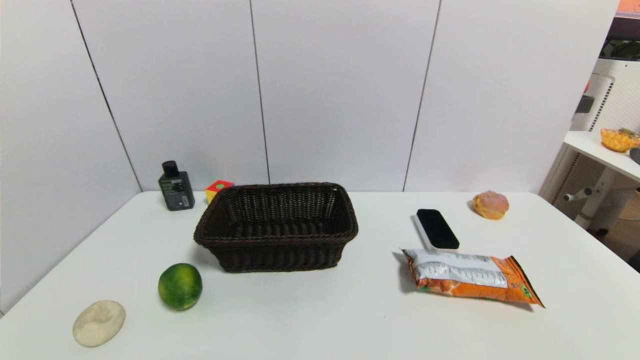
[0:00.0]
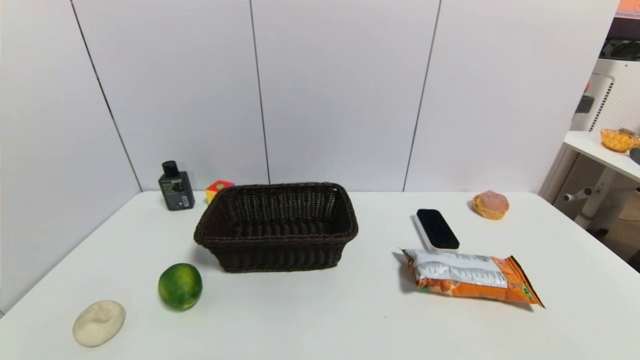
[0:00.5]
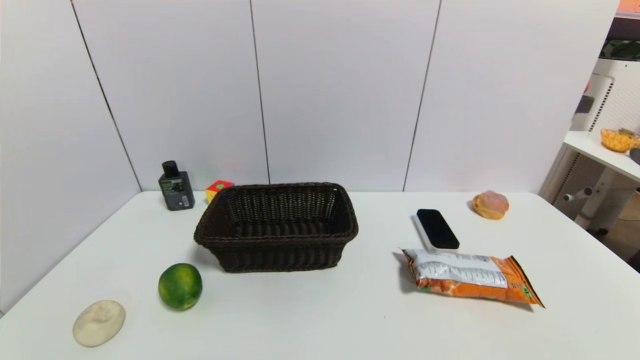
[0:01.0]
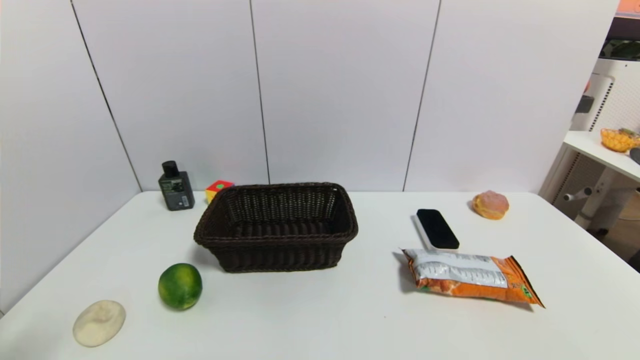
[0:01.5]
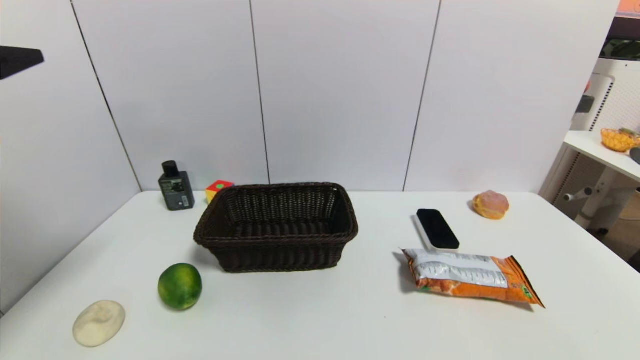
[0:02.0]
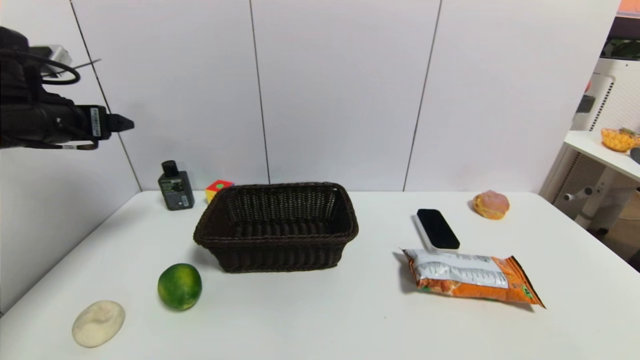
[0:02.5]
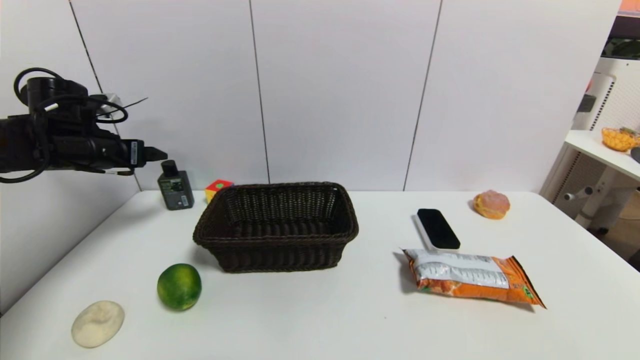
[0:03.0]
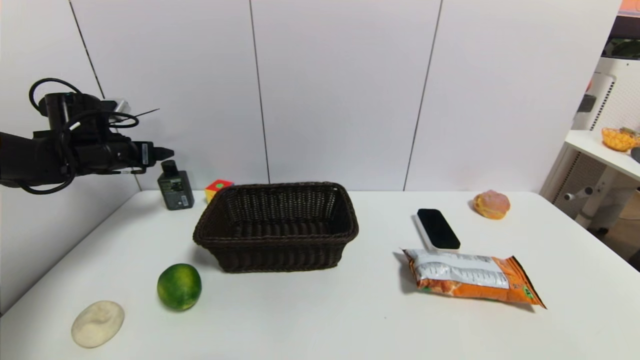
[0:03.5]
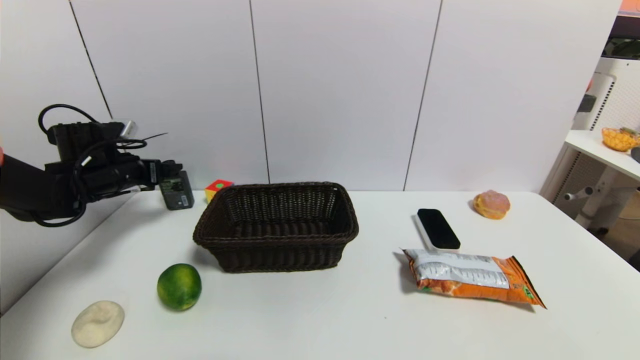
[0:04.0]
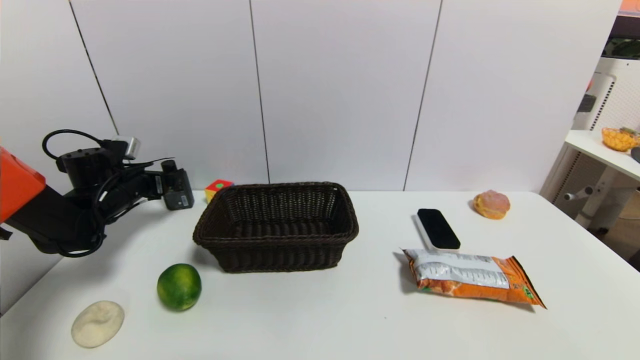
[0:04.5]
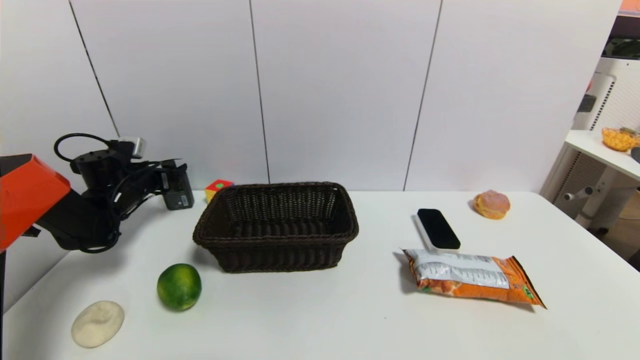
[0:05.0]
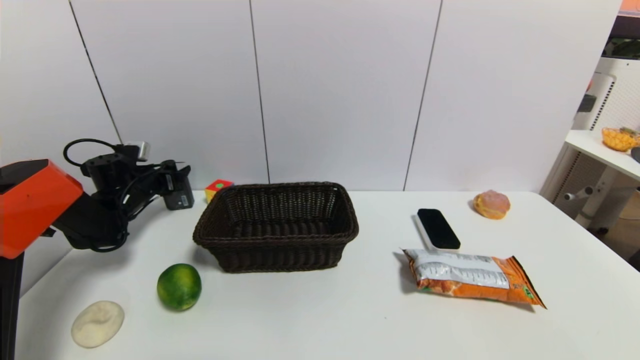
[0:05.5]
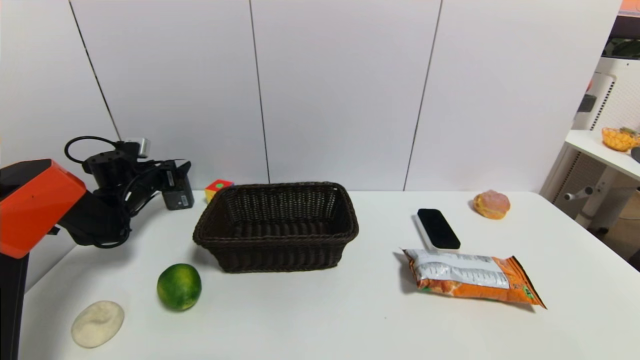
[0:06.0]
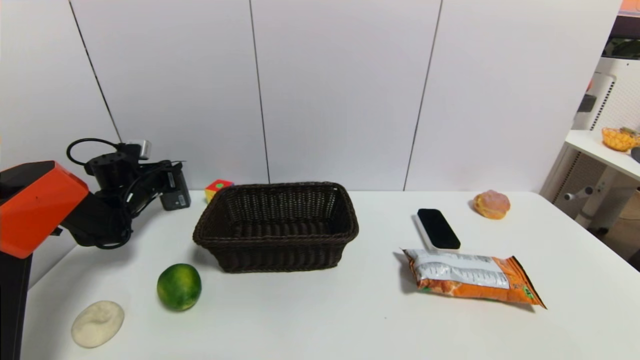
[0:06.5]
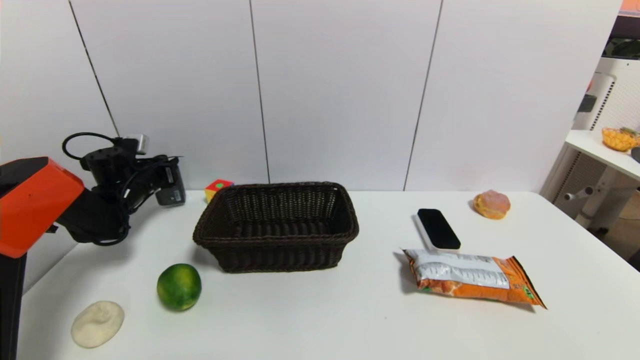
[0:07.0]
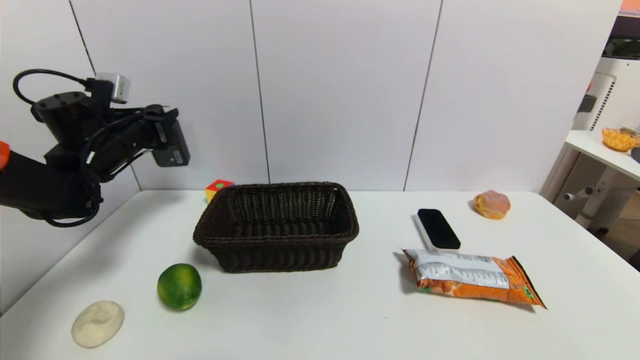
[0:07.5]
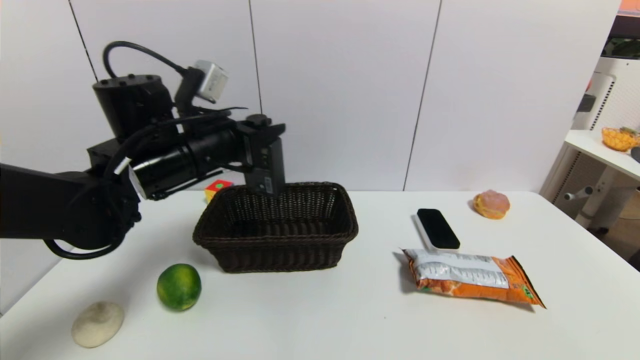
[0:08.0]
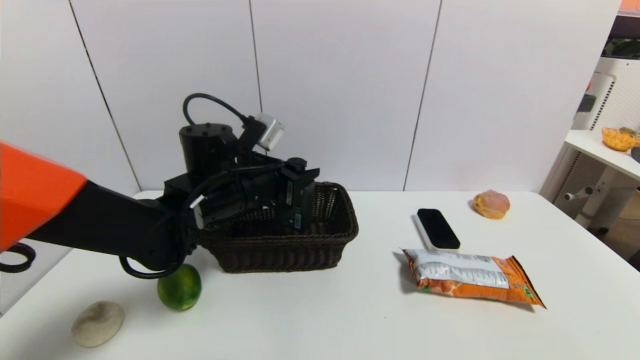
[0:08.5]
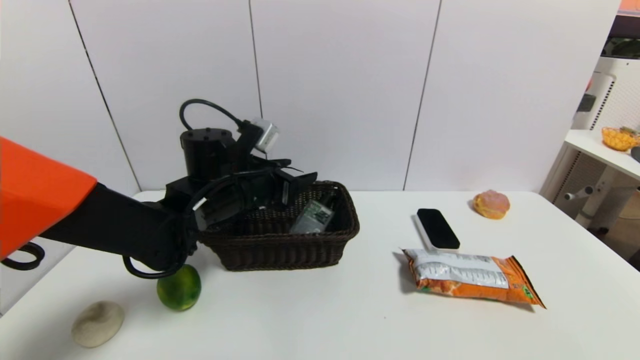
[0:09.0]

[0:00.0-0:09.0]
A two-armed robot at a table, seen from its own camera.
Task of the whole recording: use a gripper to pick the target object and place on the brown basket.
Step, 0:00.0 to 0:06.5: Grasp the hard facial cleanser with the left gripper.
0:00.0 to 0:02.0: The left gripper is displaced upward and forward by approximately 35 cm.
0:02.0 to 0:04.5: The left gripper moves downward and forward, approximately 35 cm.
0:04.5 to 0:07.0: The left gripper shifts by approximately 5 cm, and closes.
0:07.0 to 0:09.0: The left gripper is displaced to the right and backward by about 30 cm, and opens up.

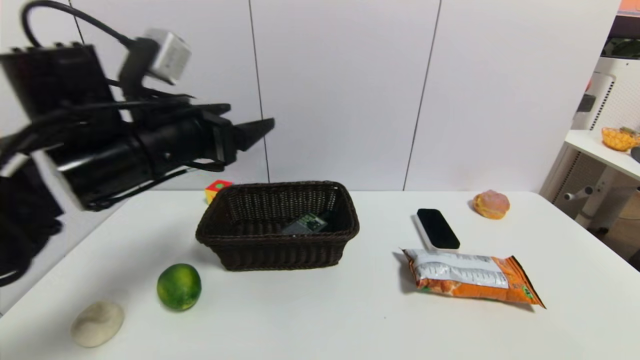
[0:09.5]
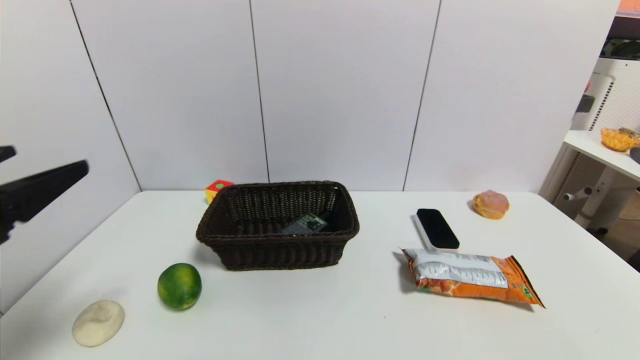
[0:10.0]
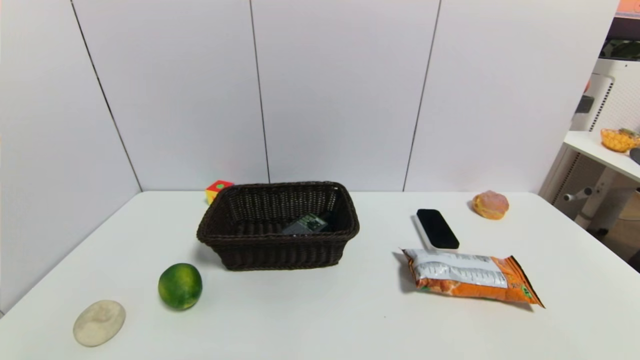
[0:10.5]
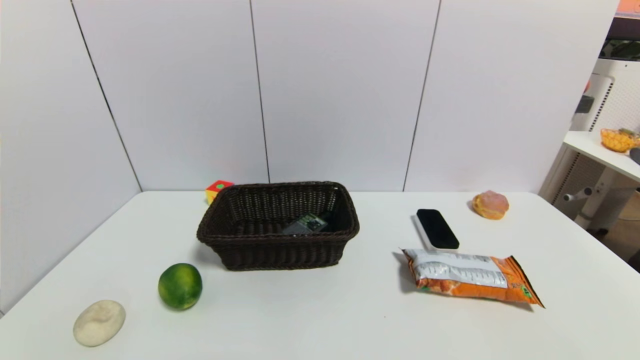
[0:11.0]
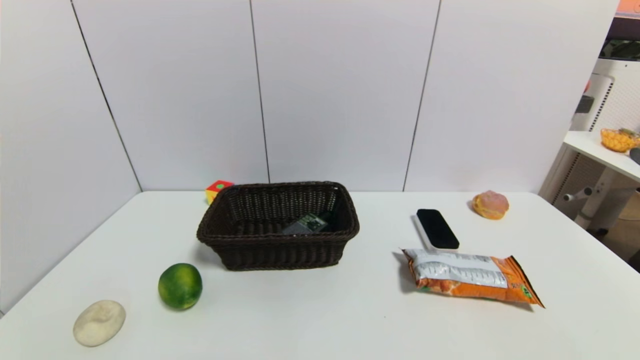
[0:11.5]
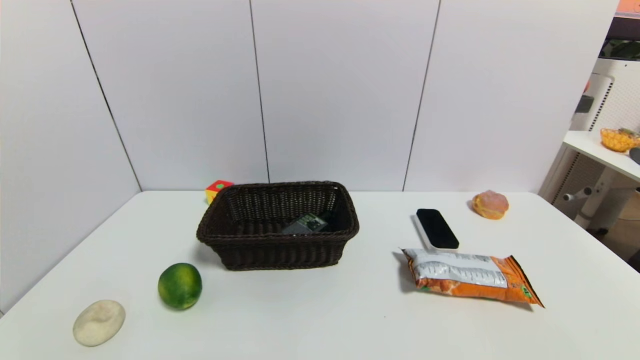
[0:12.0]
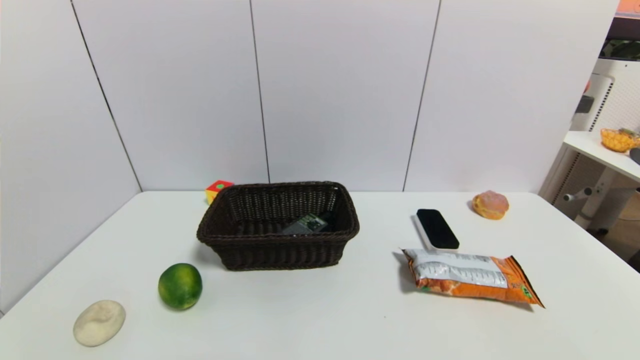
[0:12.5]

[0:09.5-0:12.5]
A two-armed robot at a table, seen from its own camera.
Task of the whole recording: use a gripper to pick the target object and place on the brown basket.
0:09.5 to 0:11.0: The left gripper travels backward, downward and to the left by about 35 cm.
0:11.0 to 0:12.5: Neither gripper changes place.
